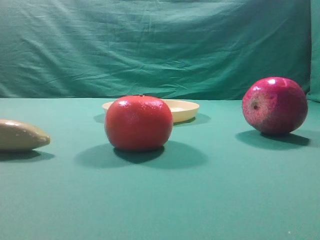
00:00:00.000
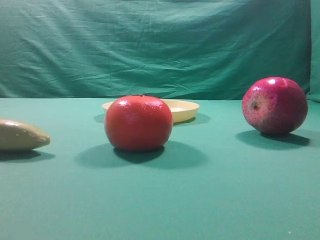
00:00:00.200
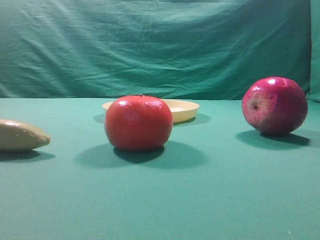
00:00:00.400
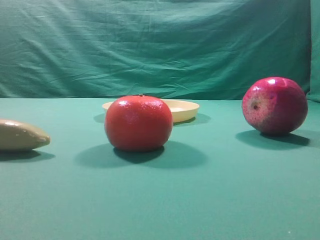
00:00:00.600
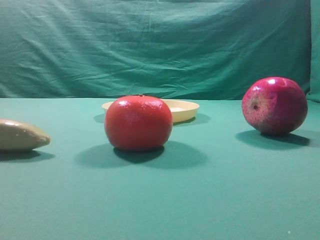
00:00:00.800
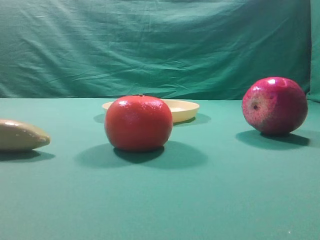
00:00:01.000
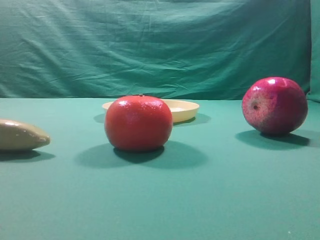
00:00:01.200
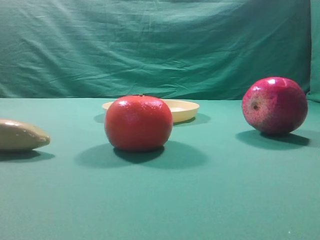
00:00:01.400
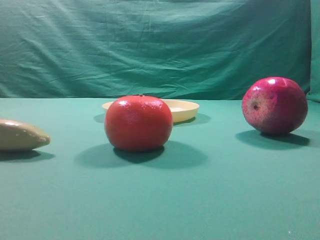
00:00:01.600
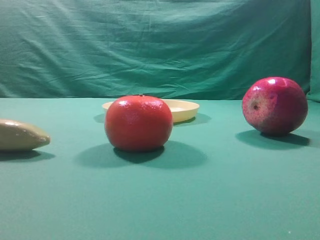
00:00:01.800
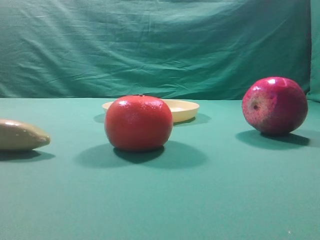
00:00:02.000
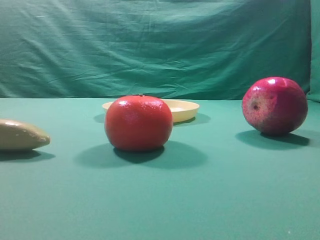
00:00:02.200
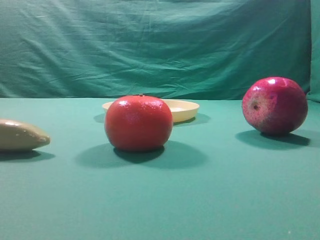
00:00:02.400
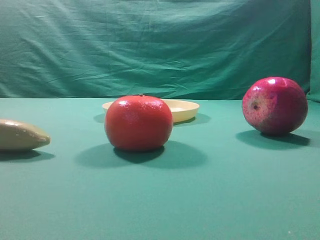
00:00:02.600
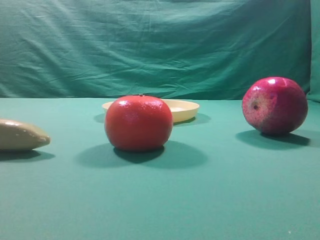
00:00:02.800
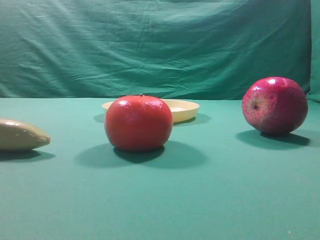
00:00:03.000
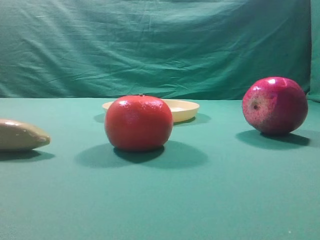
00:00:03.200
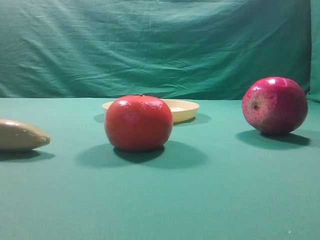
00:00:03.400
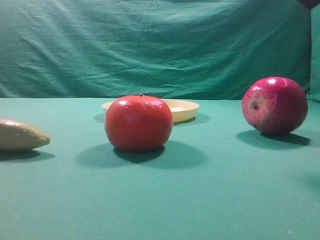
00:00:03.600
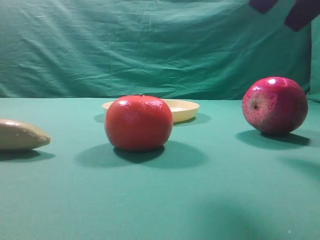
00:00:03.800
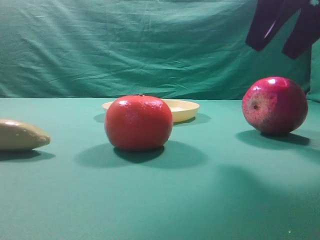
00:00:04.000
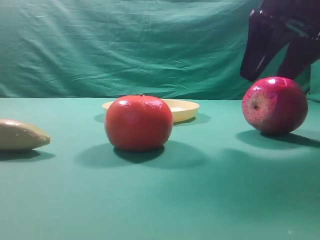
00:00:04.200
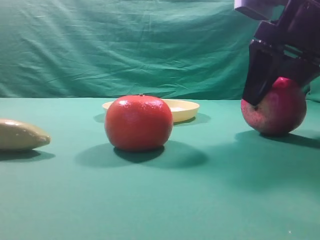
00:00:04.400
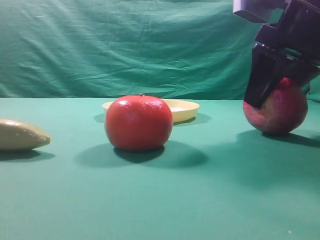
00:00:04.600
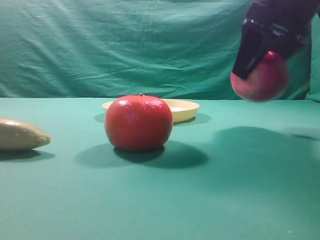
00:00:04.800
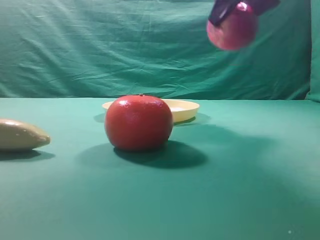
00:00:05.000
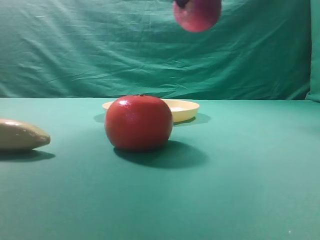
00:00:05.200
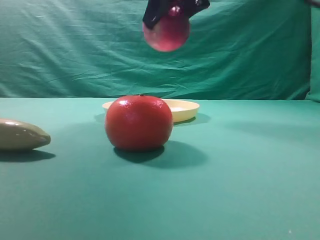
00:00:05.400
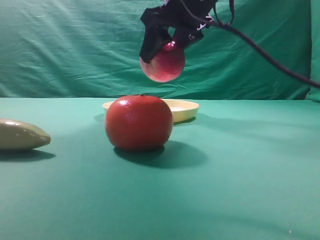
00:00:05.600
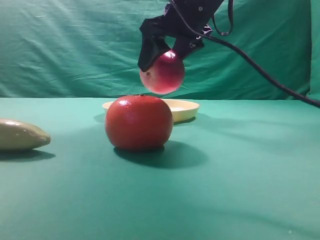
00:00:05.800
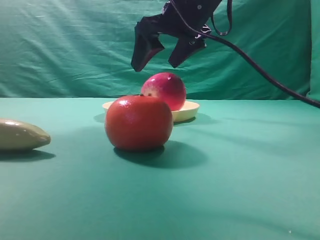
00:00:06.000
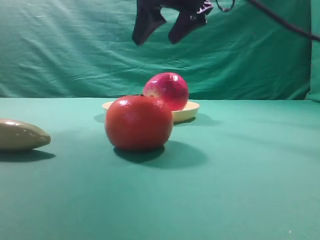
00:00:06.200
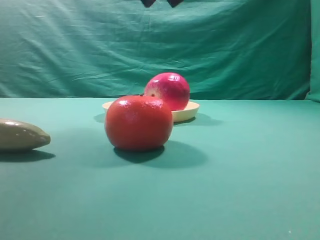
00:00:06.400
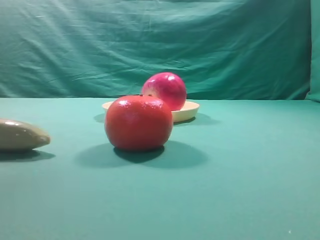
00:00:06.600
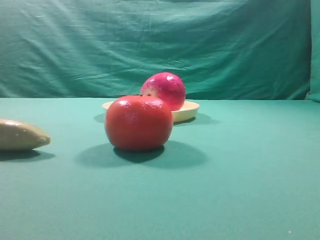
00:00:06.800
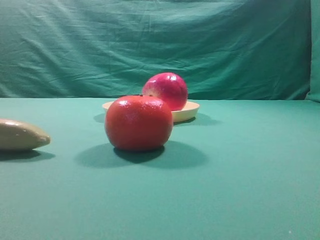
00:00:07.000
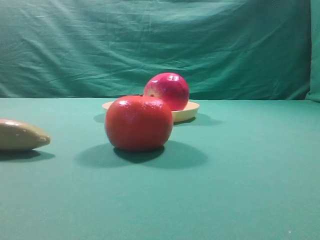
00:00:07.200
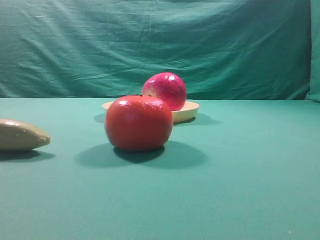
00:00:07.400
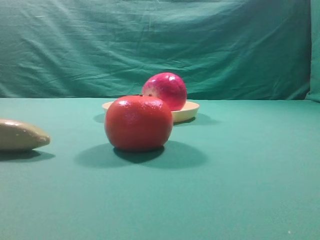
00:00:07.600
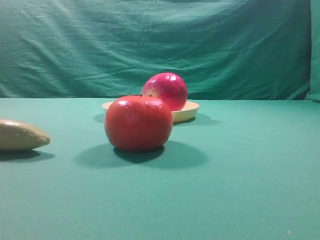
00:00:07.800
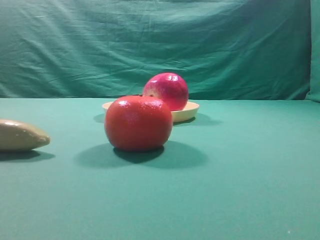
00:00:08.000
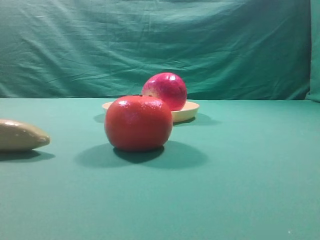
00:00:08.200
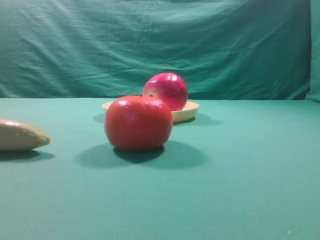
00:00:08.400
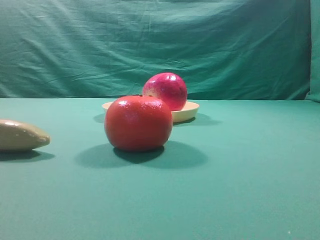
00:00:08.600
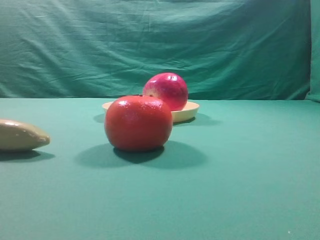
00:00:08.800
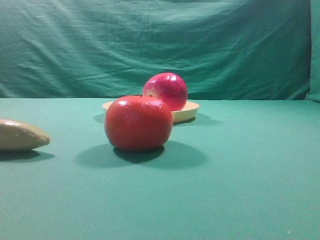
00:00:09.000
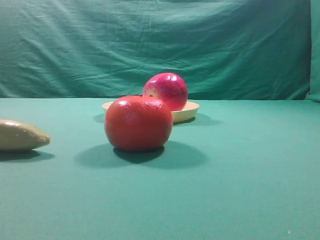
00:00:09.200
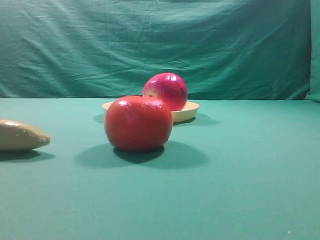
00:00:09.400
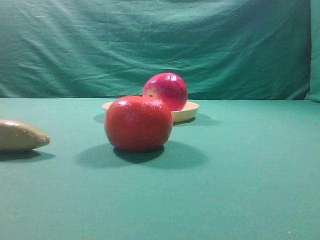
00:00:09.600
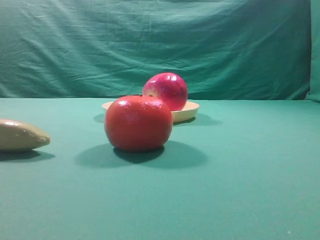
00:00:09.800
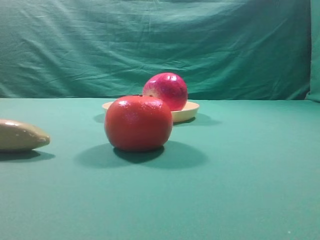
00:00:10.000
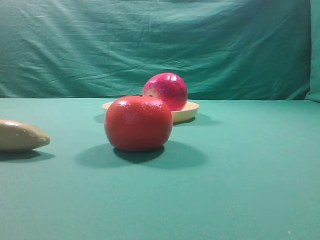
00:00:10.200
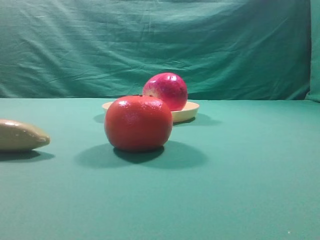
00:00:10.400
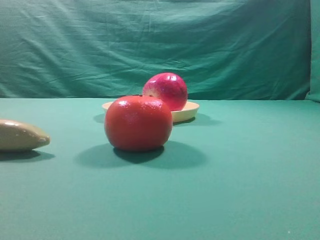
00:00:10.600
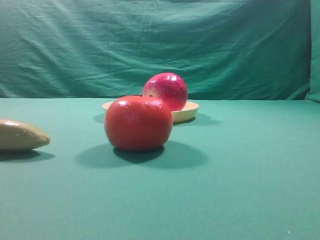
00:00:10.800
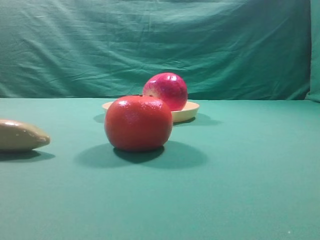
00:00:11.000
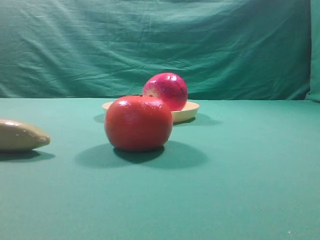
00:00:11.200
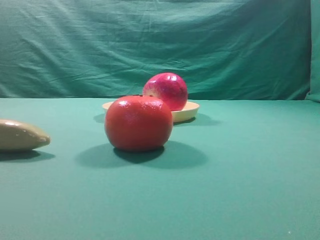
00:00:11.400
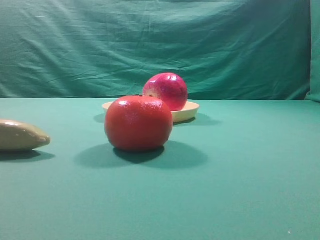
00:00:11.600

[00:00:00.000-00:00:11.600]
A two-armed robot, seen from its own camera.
Task of the whole recording: grasp the apple and place it into the yellow plate.
Step, 00:00:00.000 to 00:00:04.600: Grasp the fruit that can keep the doctor away.
Step, 00:00:04.800 to 00:00:06.000: Place the picked object into the yellow plate.
